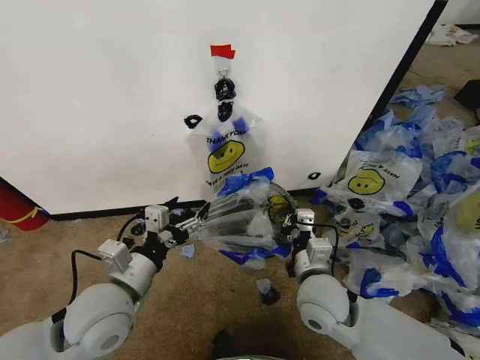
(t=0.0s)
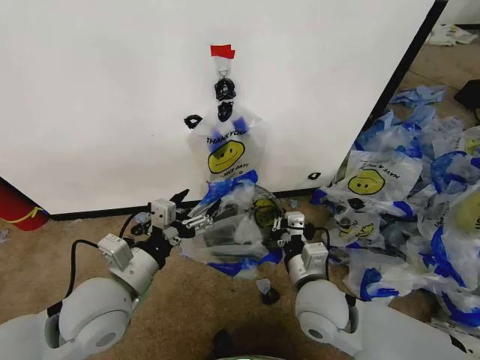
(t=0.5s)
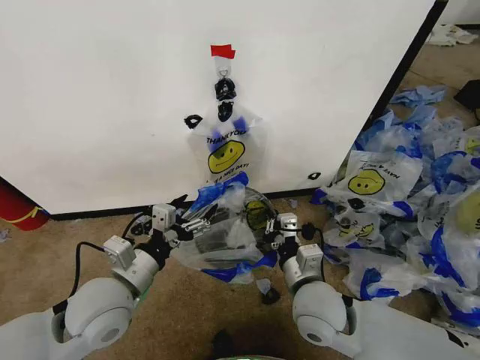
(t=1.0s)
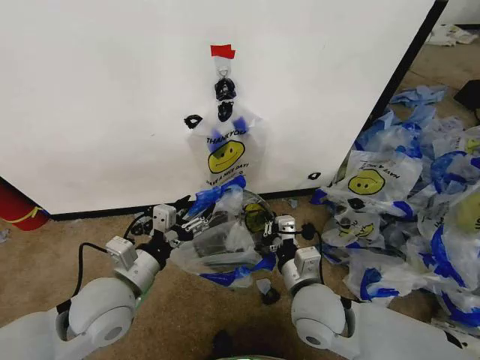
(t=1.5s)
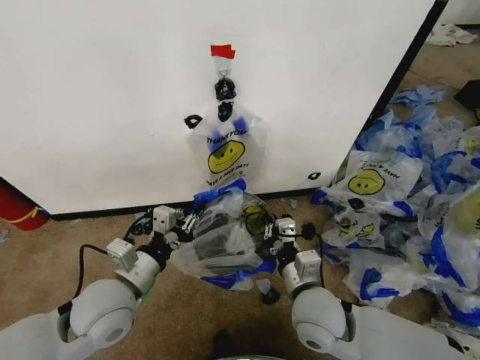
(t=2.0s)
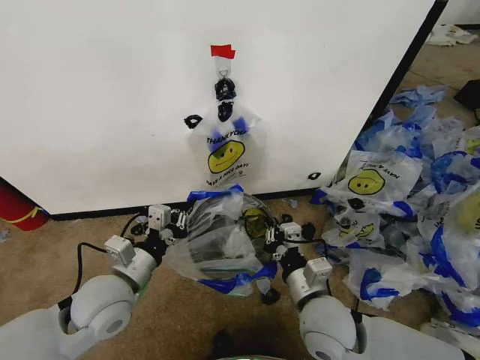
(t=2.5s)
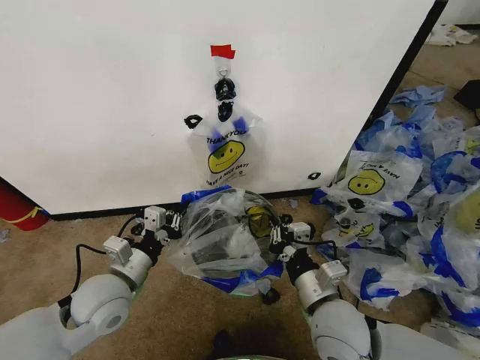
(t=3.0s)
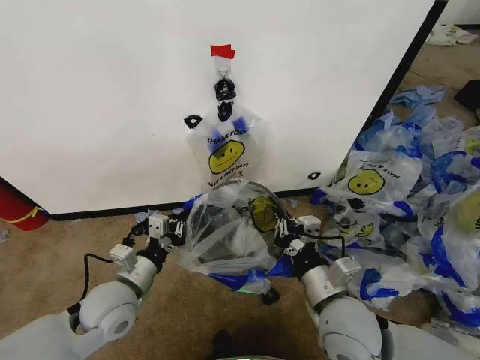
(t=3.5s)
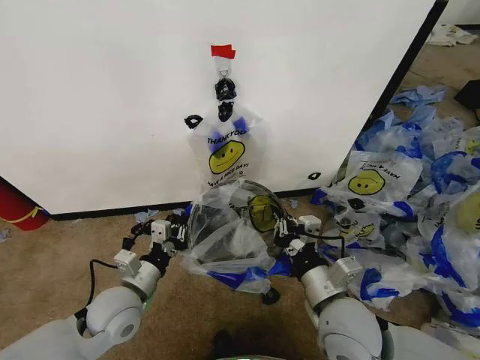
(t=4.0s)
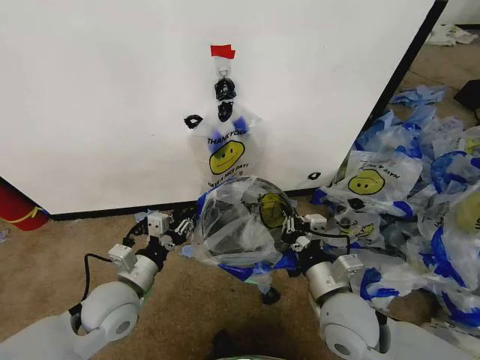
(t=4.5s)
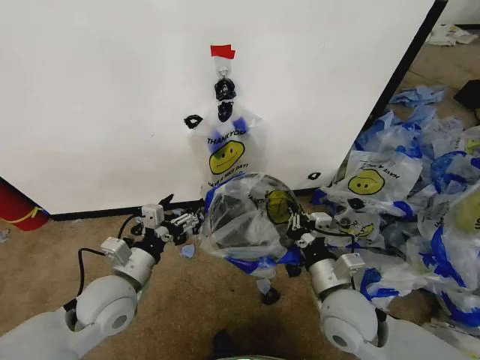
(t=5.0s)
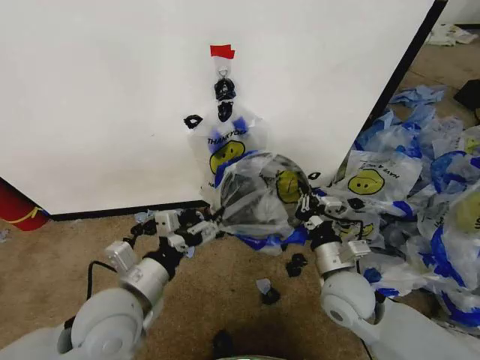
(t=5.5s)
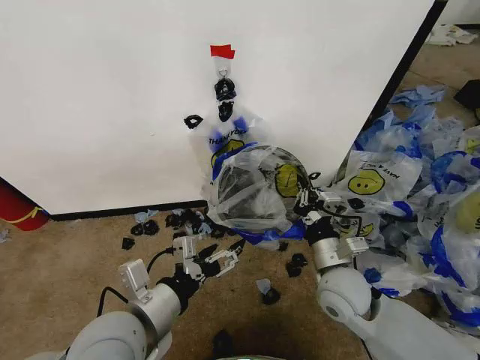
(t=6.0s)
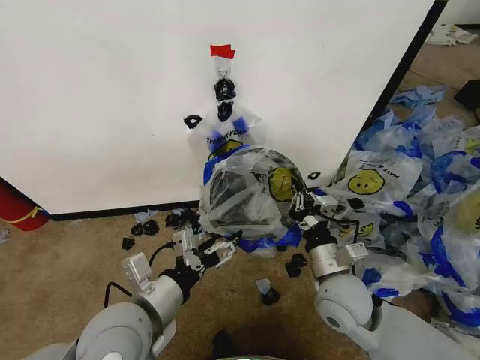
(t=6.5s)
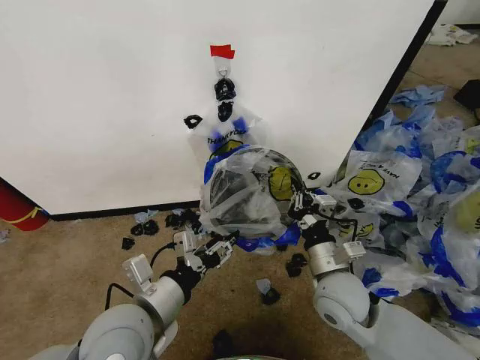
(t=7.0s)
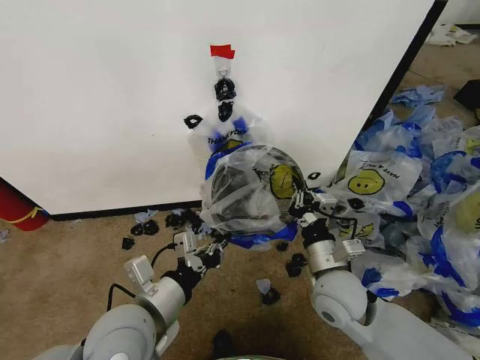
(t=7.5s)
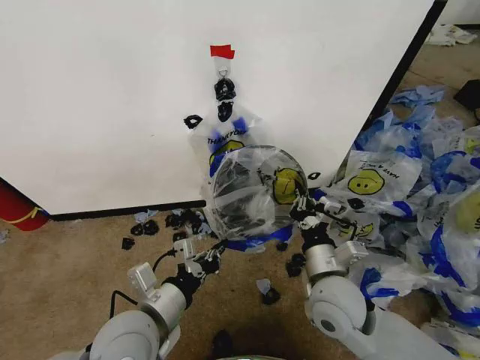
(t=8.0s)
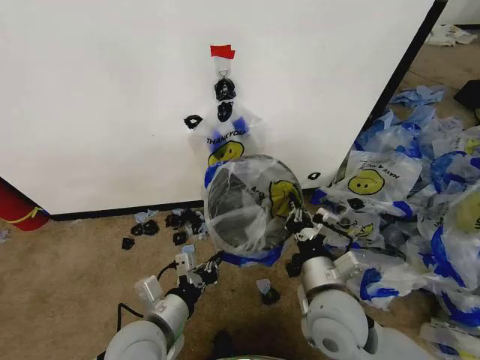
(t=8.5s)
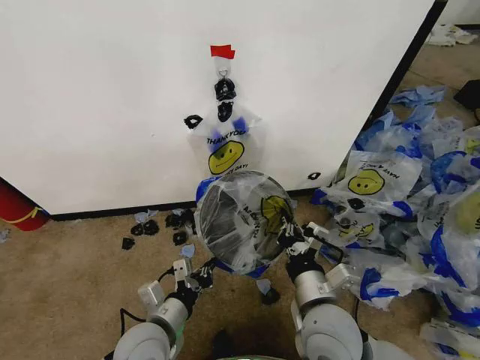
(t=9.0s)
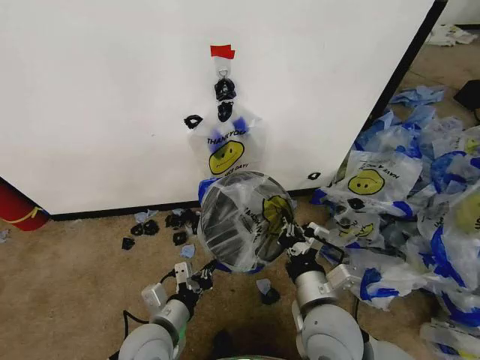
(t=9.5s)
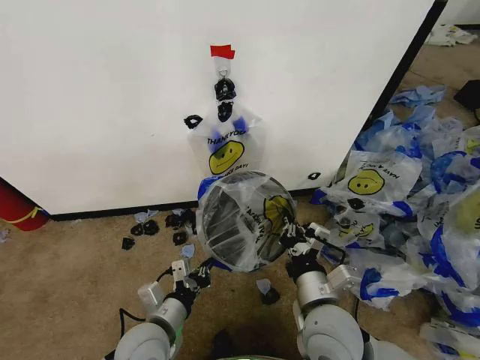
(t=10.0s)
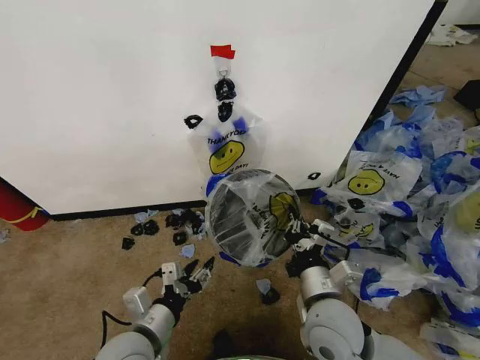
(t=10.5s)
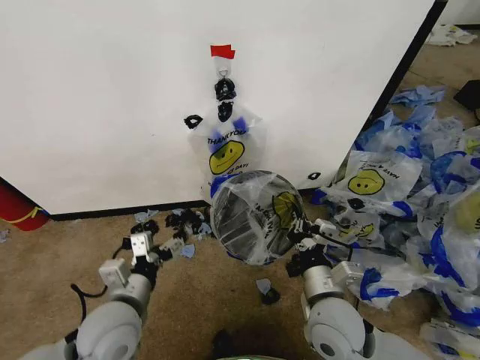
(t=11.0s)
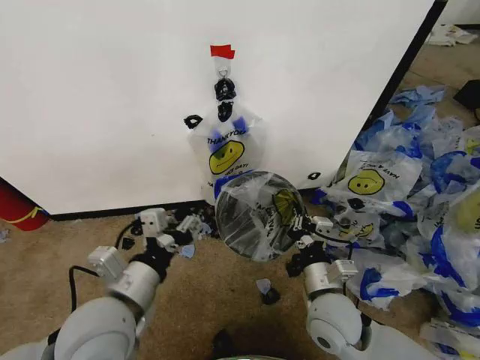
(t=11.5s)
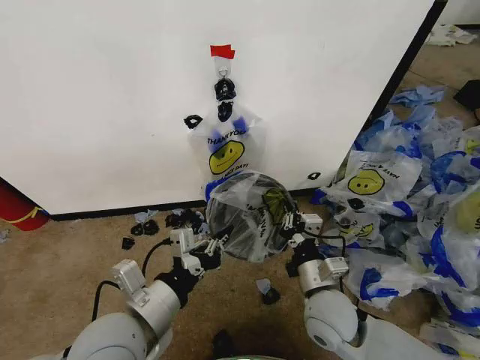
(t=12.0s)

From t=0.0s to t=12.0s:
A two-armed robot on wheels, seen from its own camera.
Task of the whole recording: Pick up the garbage bag from the wall and place it over the trash bin.
From t=0.0s to t=2.0s: The left gripper closes up.
From t=2.0s to t=4.0s: The left gripper goes approximately 5 cm downward; the right gripper changes place by roughly 5 cm.
From t=4.0s to t=6.0s: The left gripper heads upward, backward and to the right, covering roughly 15 cm, and opens its fingers, while the right gripper is displaced forward by some 5 cm.
From t=6.0s to t=8.0s: The left gripper closes up.
From t=8.0s to t=10.0s: The right gripper goes about 5 cm backward, while the left gripper shifts approximately 10 cm downward.
From t=10.0s to t=12.0s: The left gripper travels upward by roughly 15 cm, and opens, then closes again; the right gripper ends up about 5 cm from where it was.

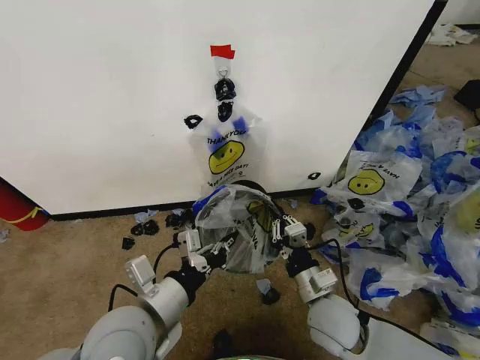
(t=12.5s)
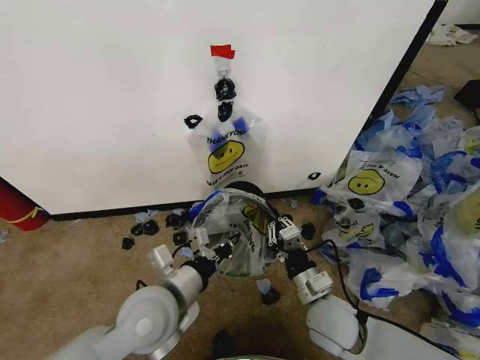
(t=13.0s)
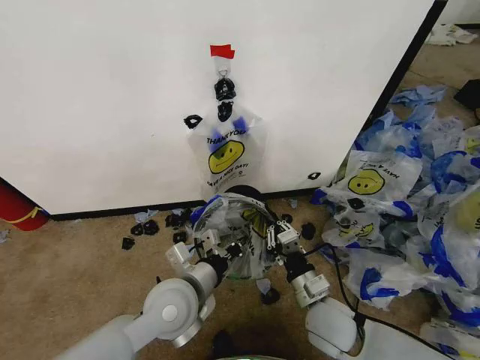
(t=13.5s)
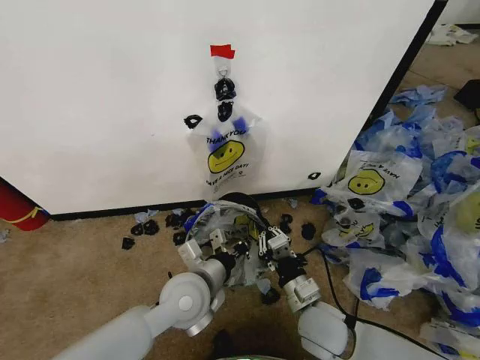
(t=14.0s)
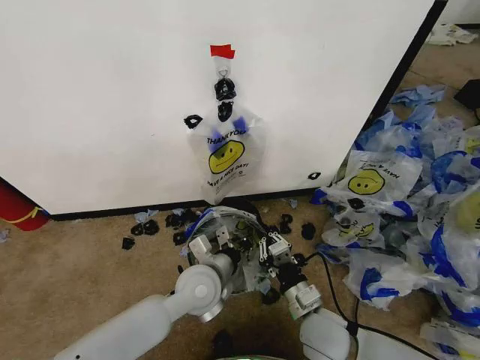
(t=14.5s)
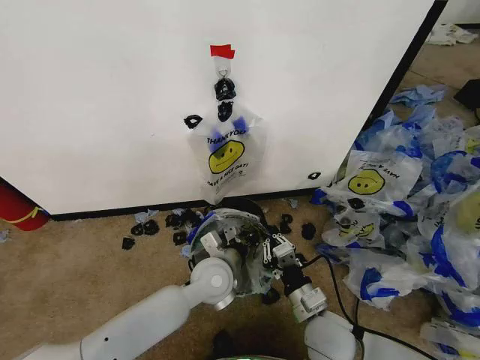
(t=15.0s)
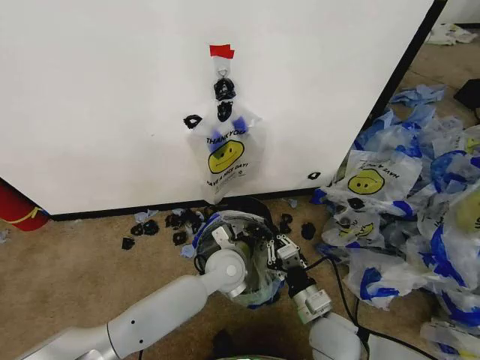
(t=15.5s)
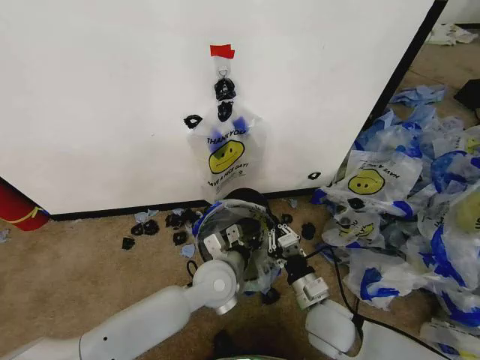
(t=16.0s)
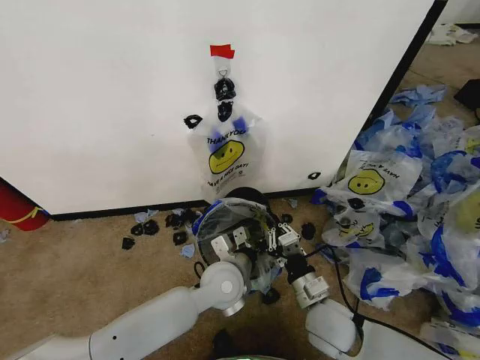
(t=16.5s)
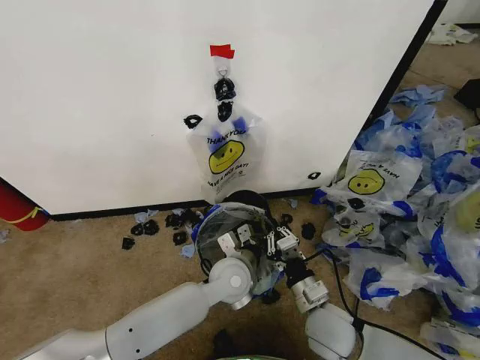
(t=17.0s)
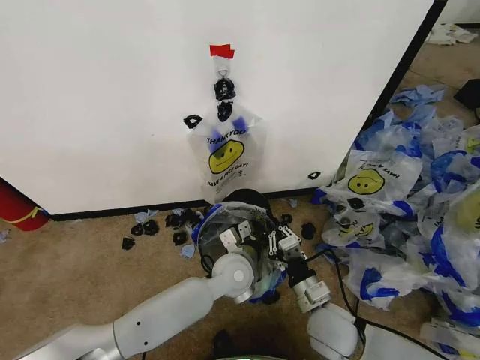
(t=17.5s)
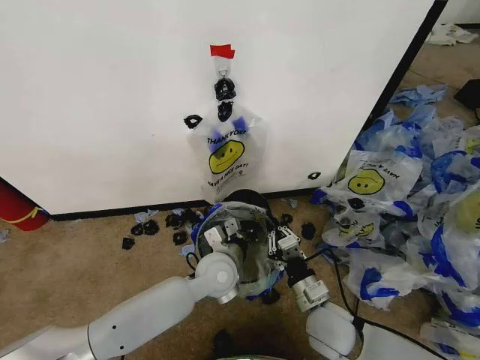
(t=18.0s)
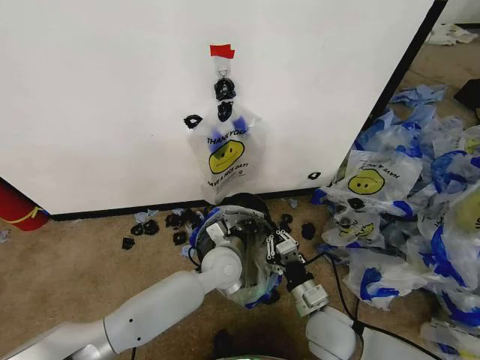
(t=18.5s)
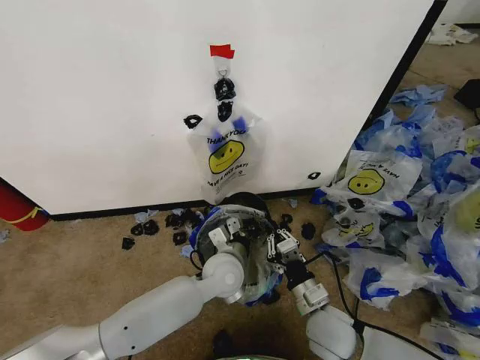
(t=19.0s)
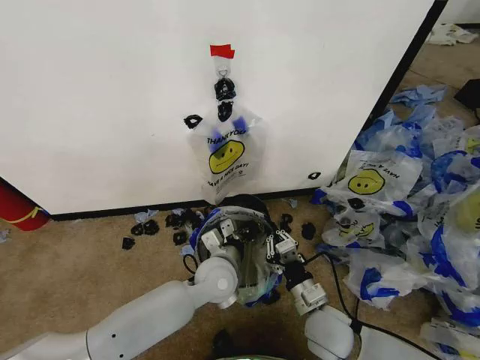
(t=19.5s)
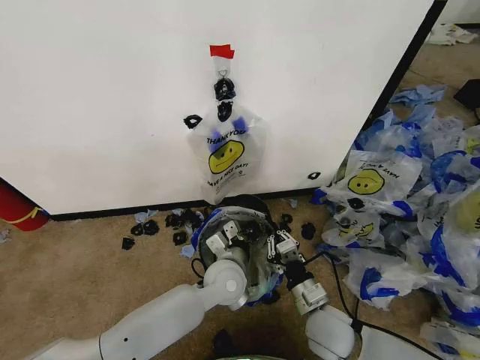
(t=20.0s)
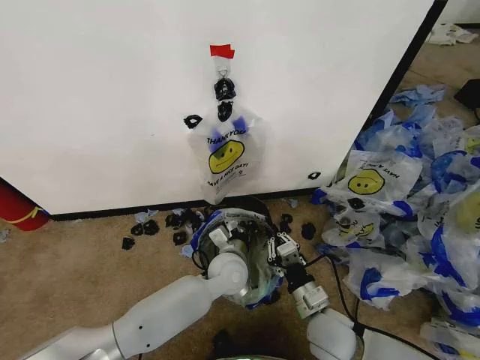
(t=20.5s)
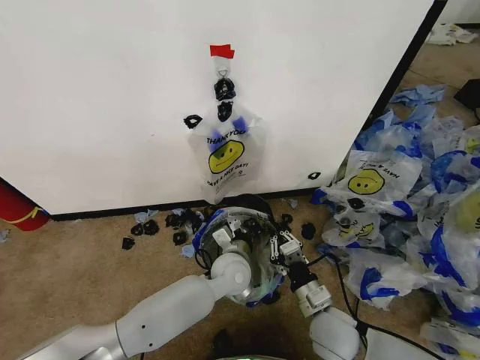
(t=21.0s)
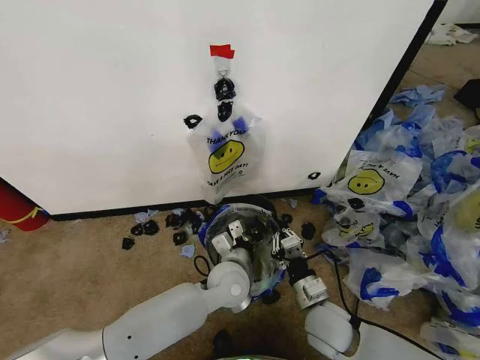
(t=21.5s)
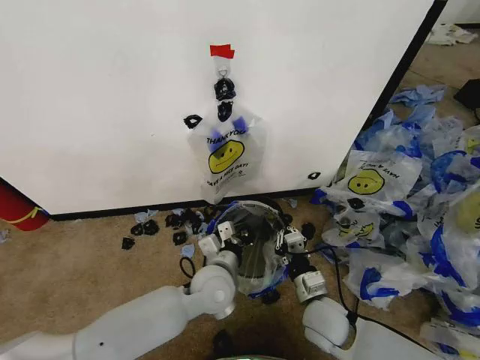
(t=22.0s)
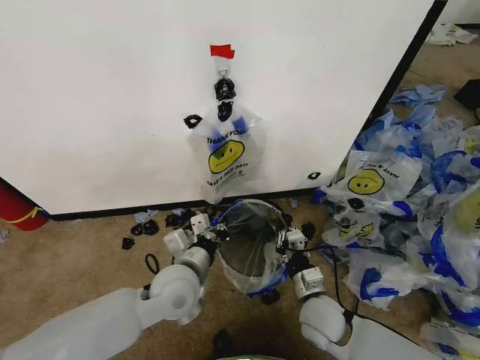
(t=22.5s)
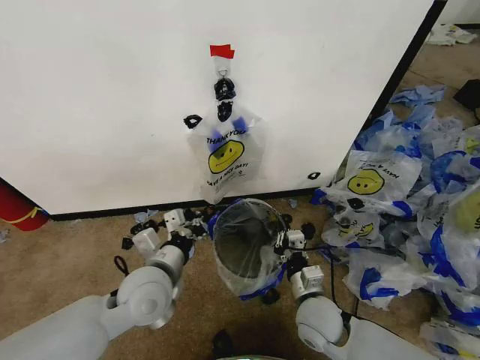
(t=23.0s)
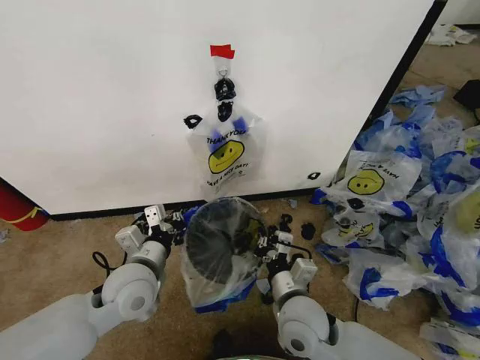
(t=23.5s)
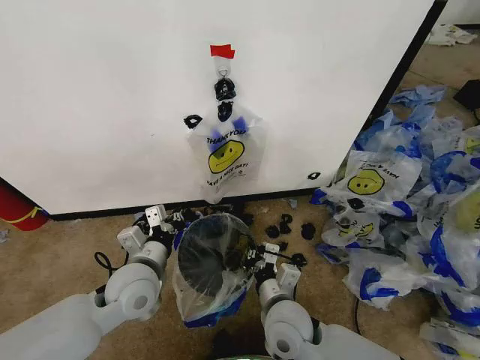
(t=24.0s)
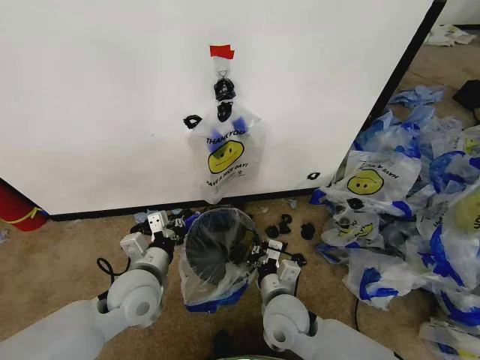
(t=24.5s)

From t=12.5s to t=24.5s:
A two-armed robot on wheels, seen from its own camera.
Task of the whole recording: Pick up the garbage bag from the wall and place it over the trash bin.
From t=12.5s to t=14.5s: The left gripper shifts some 15 cm forward, downward and to the right.
From t=16.5s to t=18.5s: The left gripper changes place by roughly 5 cm.
From t=18.5s to t=20.5s: The grippers move only a little.
From t=20.5s to t=22.5s: The left gripper heads to the left, upward and backward, covering some 15 cm.
From t=22.5s to t=24.5s: Both grippers move to the left, roughly 10 cm.

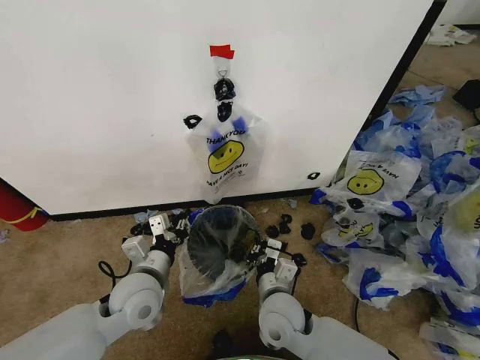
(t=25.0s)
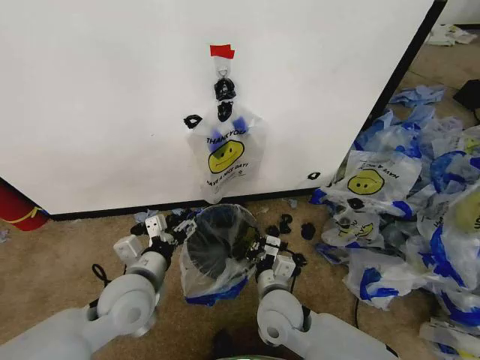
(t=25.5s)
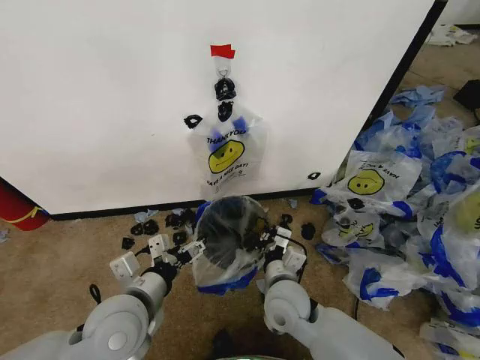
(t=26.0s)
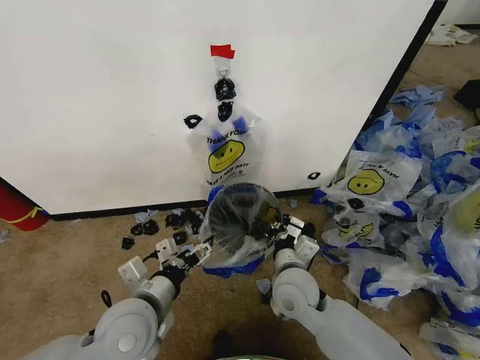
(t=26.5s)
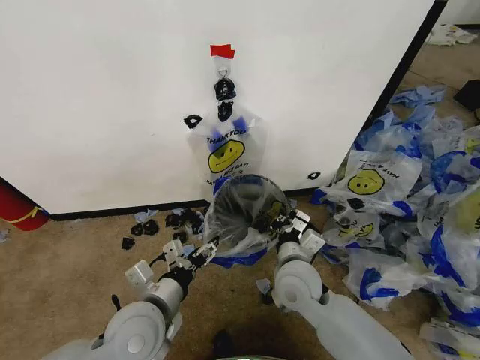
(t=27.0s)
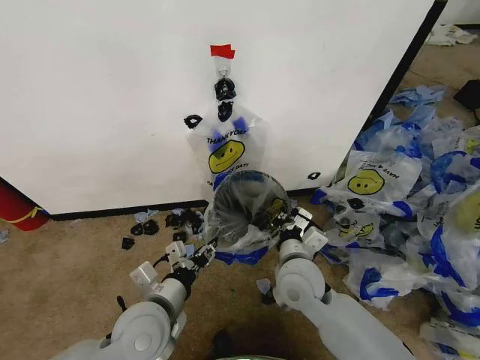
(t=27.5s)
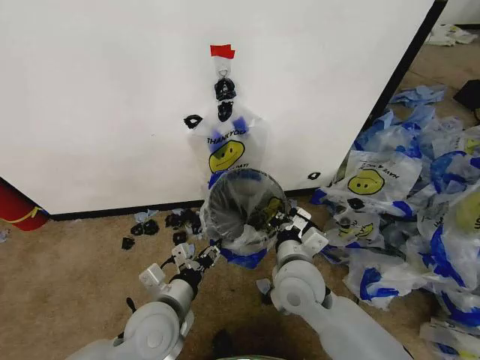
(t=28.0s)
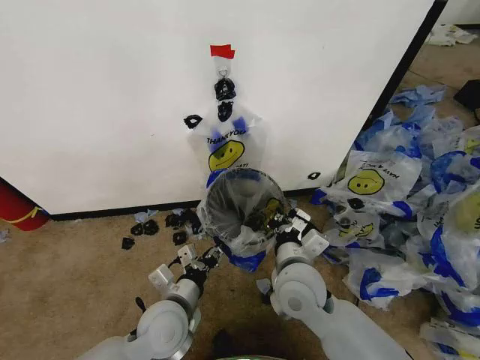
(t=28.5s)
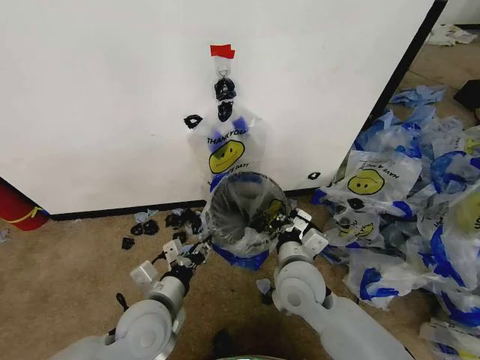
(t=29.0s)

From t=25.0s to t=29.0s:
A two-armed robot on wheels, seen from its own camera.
Task of the whole recording: Pick up the garbage bag from the wall and place it over the trash bin.
From t=25.0s to t=27.0s: The left gripper travels backward by roughly 5 cm, and opens its fingers. Meanwhile the right gripper heads upward, covering roughly 5 cm.
